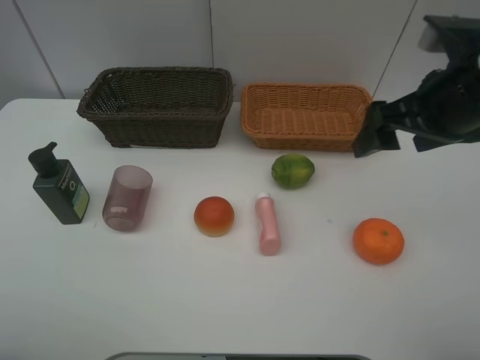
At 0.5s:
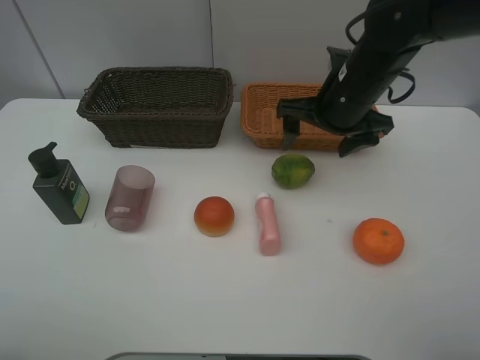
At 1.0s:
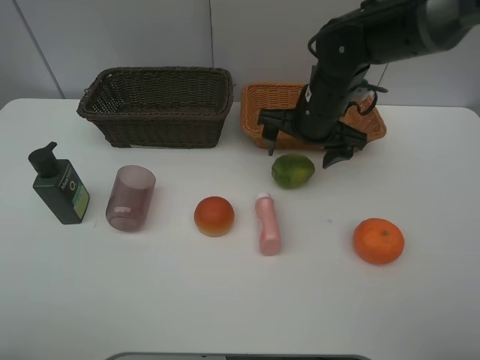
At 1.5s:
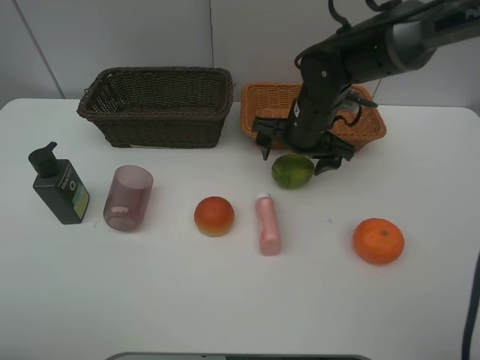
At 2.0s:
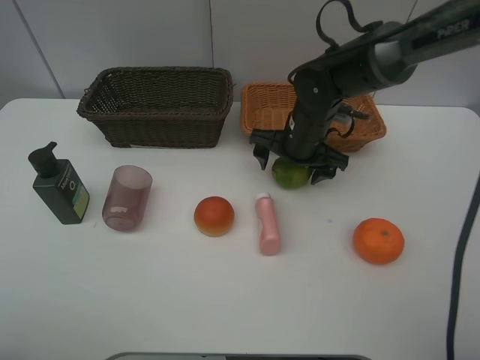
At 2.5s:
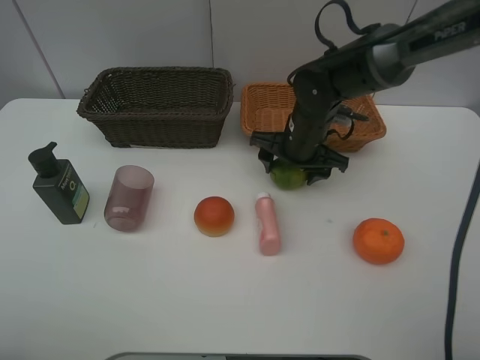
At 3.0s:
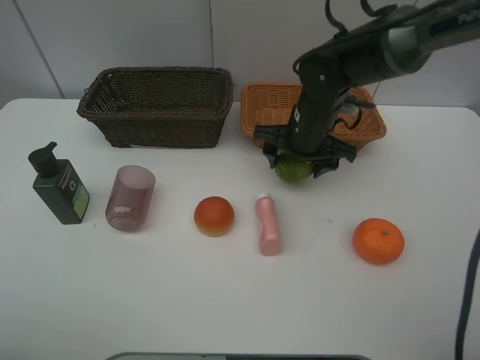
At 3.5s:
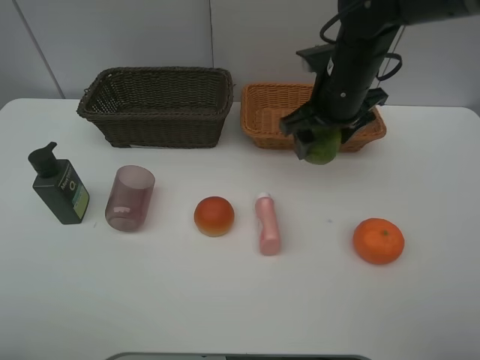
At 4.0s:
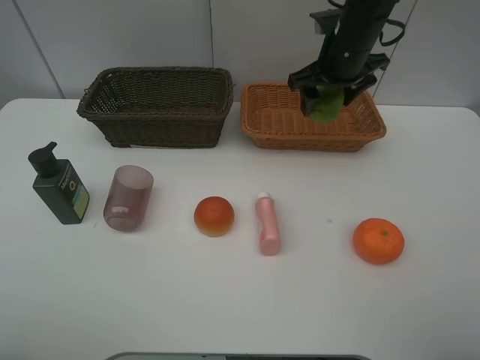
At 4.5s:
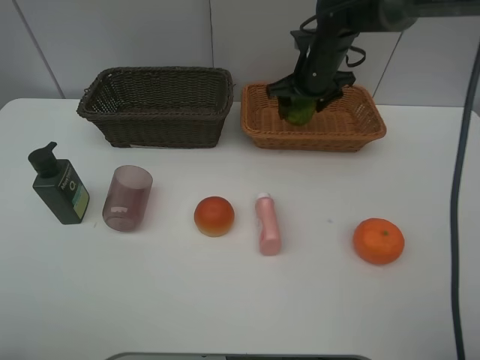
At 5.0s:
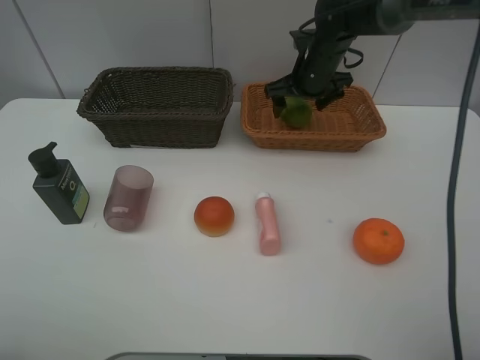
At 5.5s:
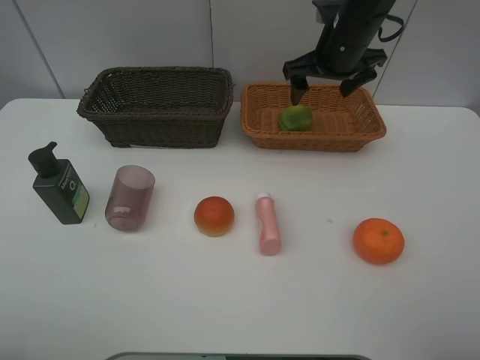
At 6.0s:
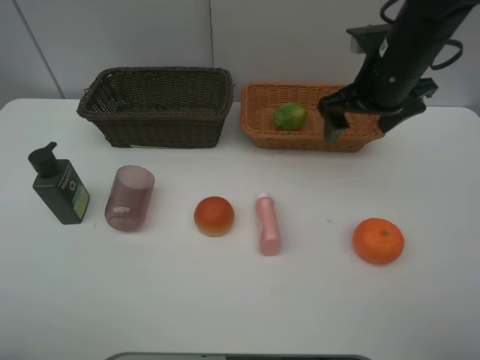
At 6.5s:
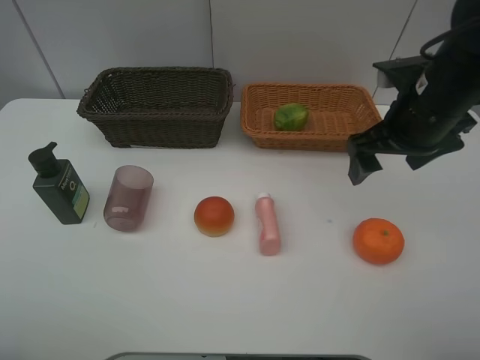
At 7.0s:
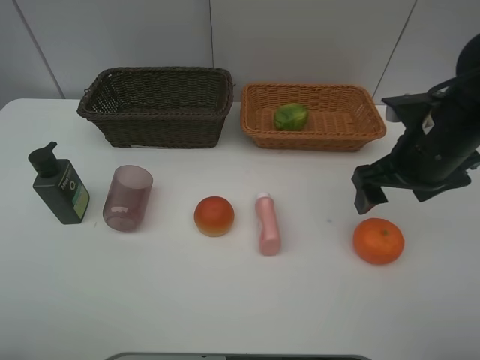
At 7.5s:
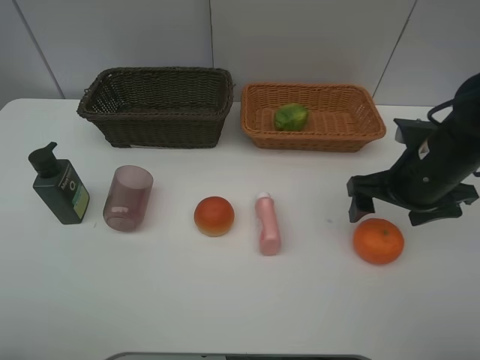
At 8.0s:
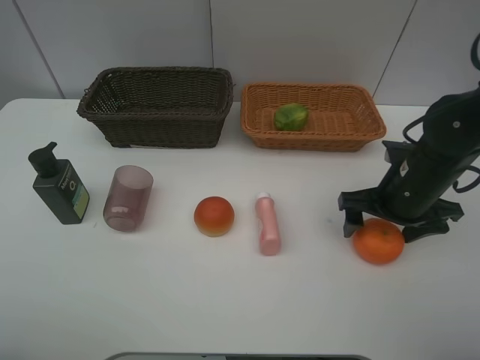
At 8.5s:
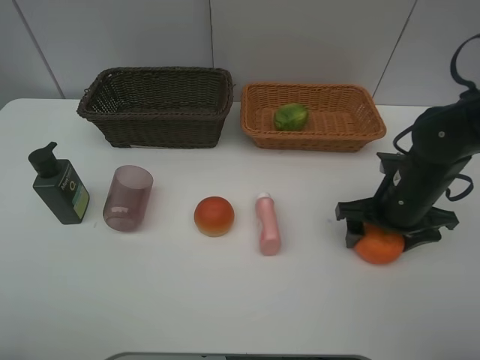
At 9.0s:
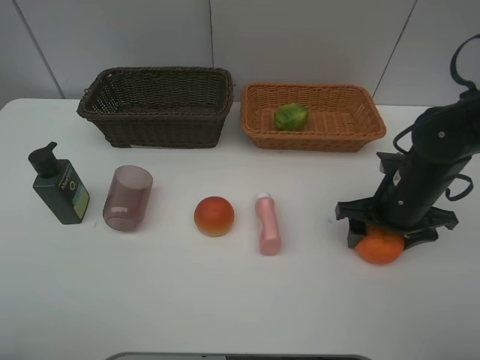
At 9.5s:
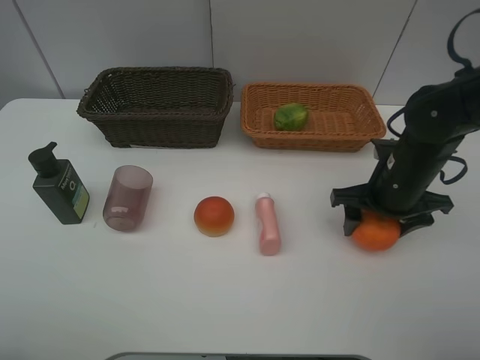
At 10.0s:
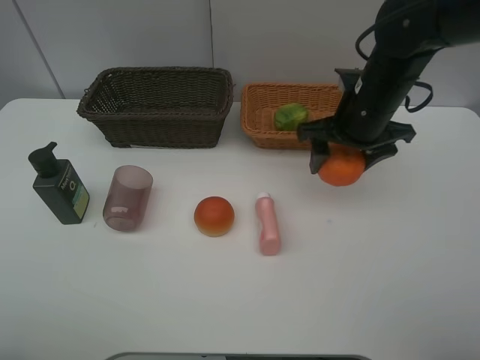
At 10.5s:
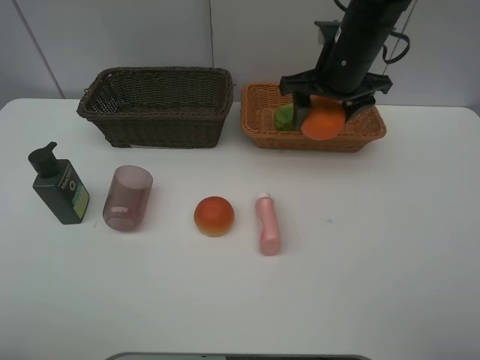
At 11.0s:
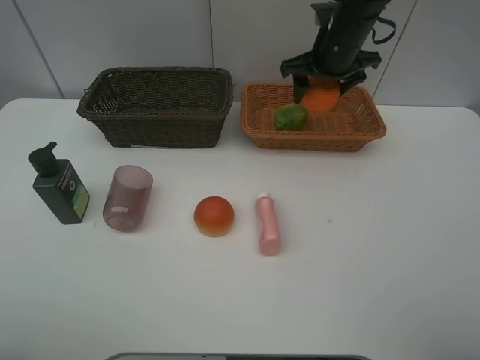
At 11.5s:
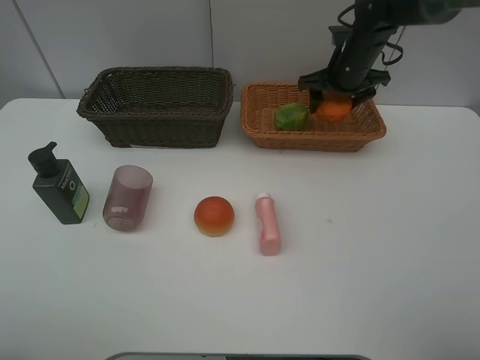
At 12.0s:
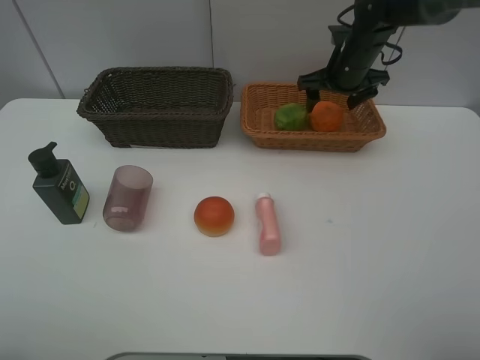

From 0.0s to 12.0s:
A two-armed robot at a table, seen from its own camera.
Task of the whole recording: place multiple objects separately in different baskets.
From 0.0s to 2.0s: The right gripper moves downward, forward and to the left, about 20 cm.
From 2.0s to 4.0s: The right gripper moves upward and forward, about 15 cm.
From 4.0s to 6.0s: The right gripper moves backward, some 10 cm.
From 6.0s to 8.0s: The right gripper is displaced downward and backward by approximately 15 cm.
From 8.0s to 10.0s: The right gripper travels forward, upward and to the left by roughly 10 cm.
From 10.0s to 12.0s: The right gripper goes approximately 15 cm forward.

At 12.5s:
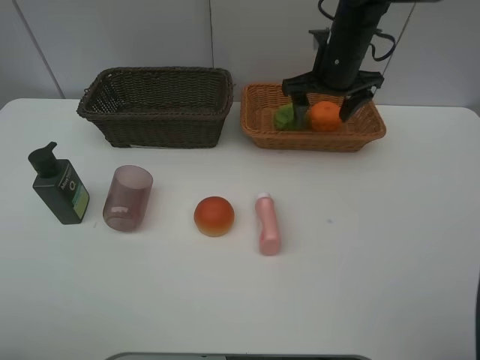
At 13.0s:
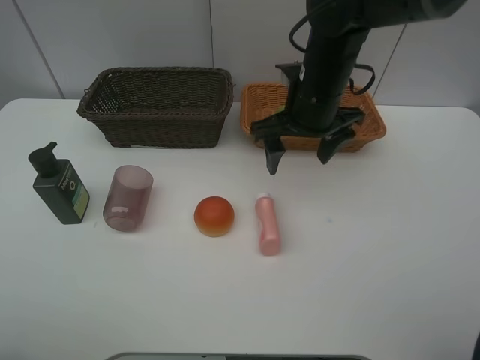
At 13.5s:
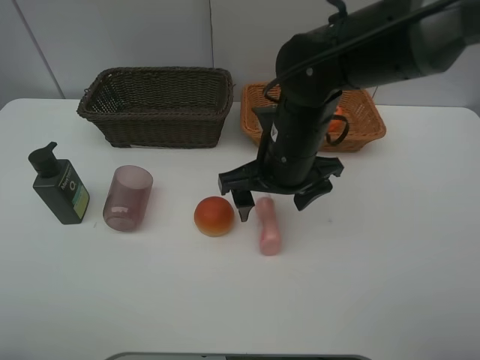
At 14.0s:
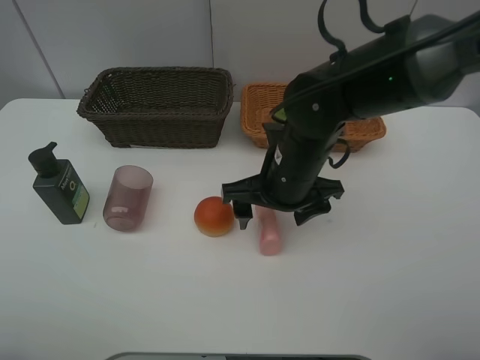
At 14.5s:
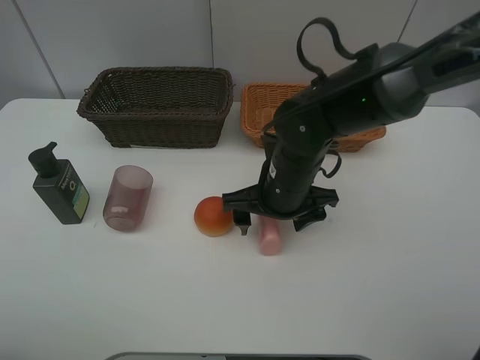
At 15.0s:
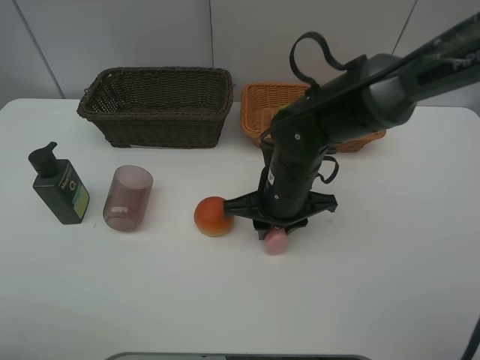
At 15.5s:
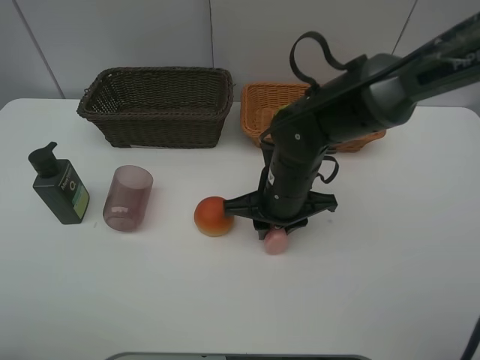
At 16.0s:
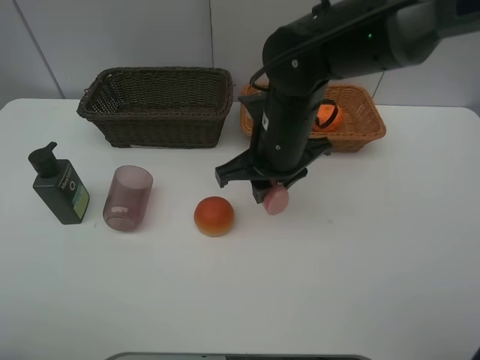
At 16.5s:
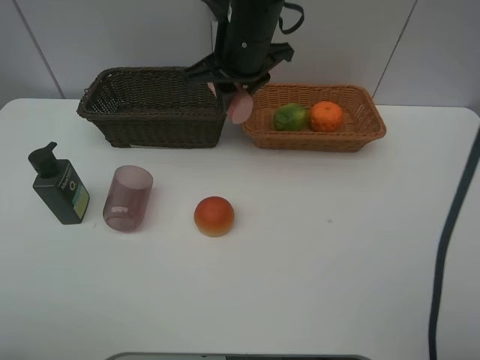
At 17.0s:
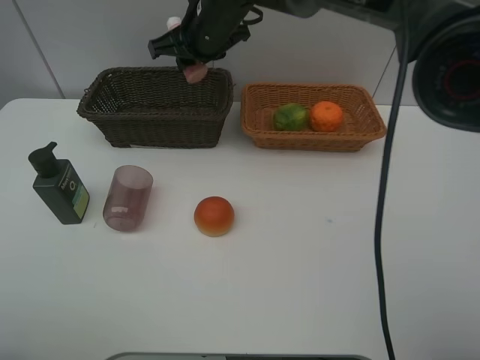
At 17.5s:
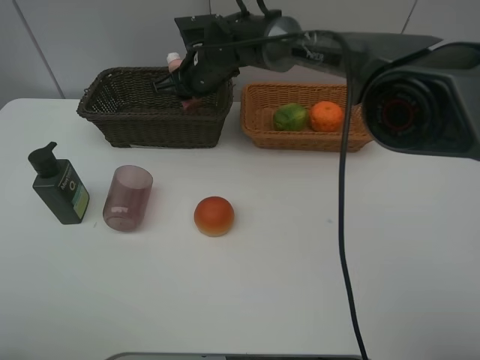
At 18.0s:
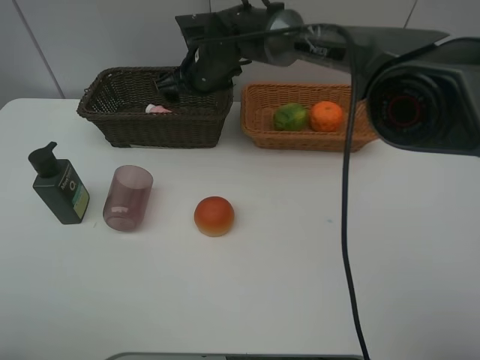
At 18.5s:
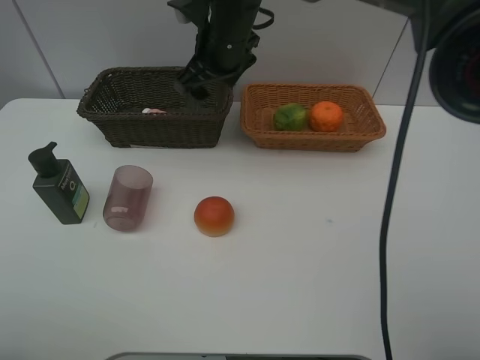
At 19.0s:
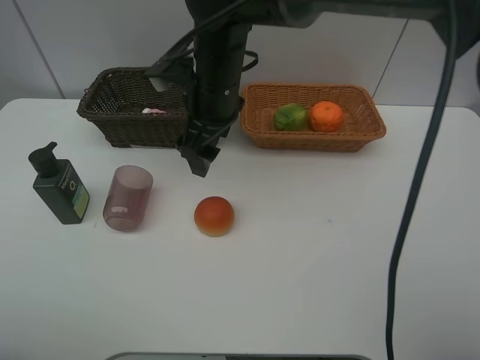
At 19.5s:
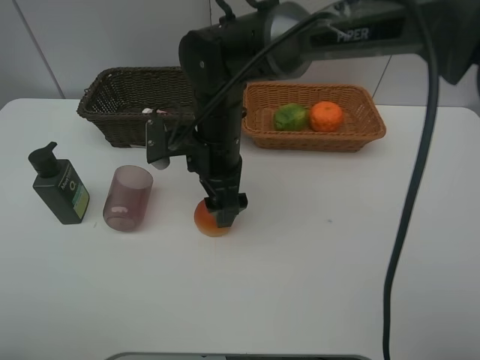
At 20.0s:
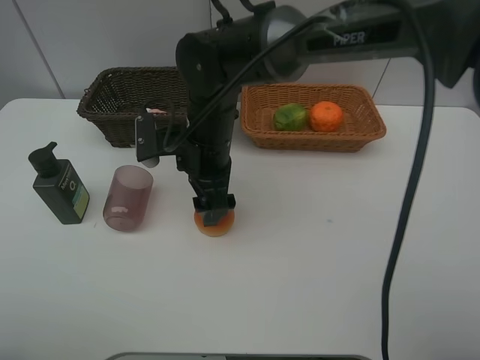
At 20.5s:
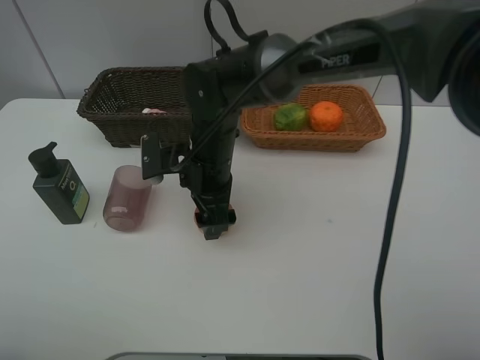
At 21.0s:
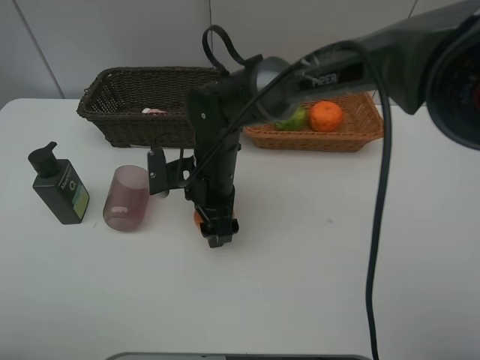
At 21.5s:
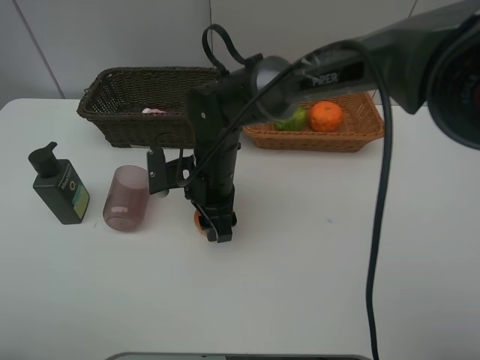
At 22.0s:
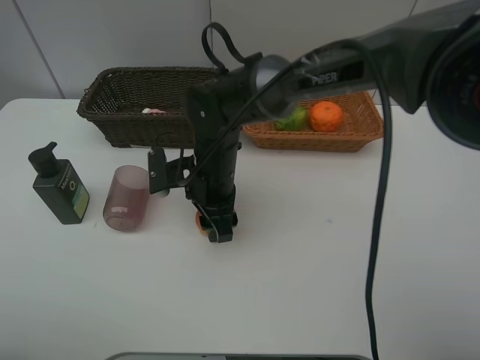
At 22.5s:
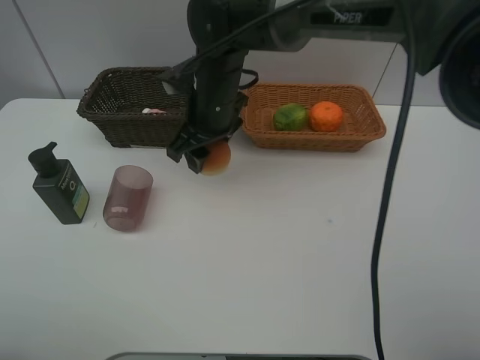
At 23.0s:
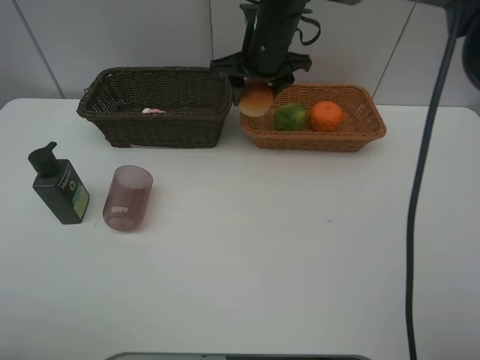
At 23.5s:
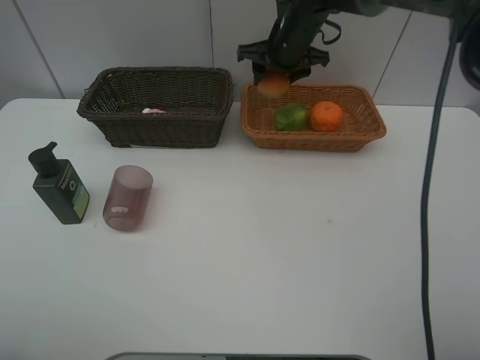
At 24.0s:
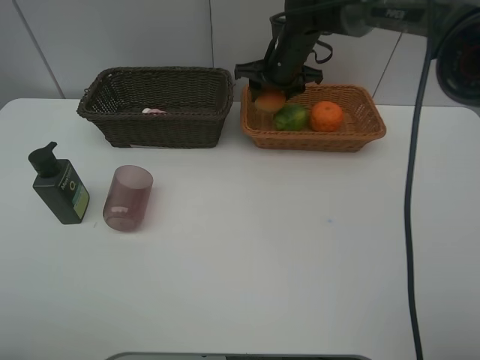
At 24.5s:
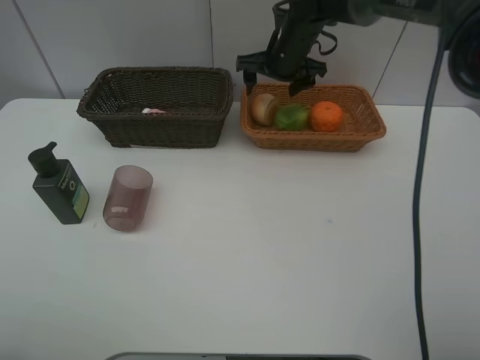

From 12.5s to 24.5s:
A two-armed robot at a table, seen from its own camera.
Task of the whole recording: place multiple objects separately in different baskets.
From 12.5s to 14.5s: The right gripper shifts about 20 cm backward, downward and to the left.
From 14.5s to 16.5s: The right gripper shifts some 20 cm upward, forward and to the left, and closes up.
From 16.5s to 18.5s: The right gripper reaches roughly 10 cm downward, then returns, and opens up.
From 18.5s to 20.5s: The right gripper travels downward and backward by about 15 cm.
From 20.5s to 22.5s: The right gripper heads upward and forward, covering some 10 cm, and closes.
From 22.5s to 24.5s: The right gripper is displaced forward and to the right by roughly 15 cm, and opens up.

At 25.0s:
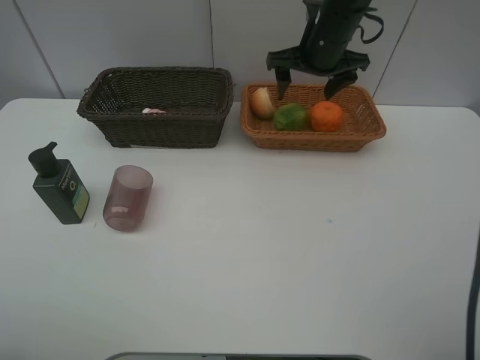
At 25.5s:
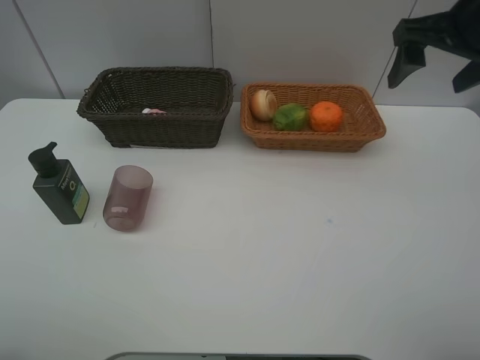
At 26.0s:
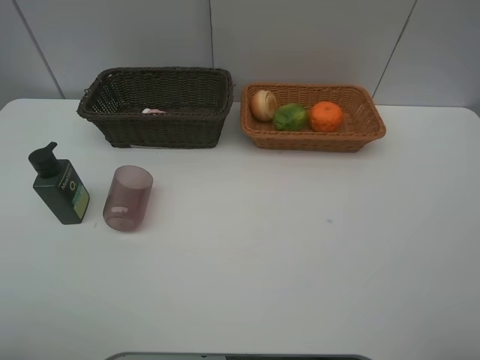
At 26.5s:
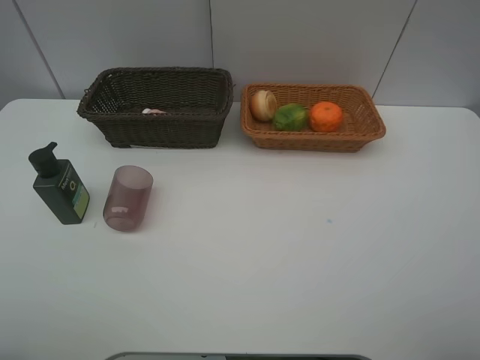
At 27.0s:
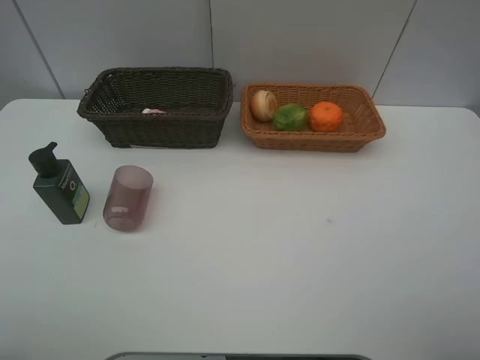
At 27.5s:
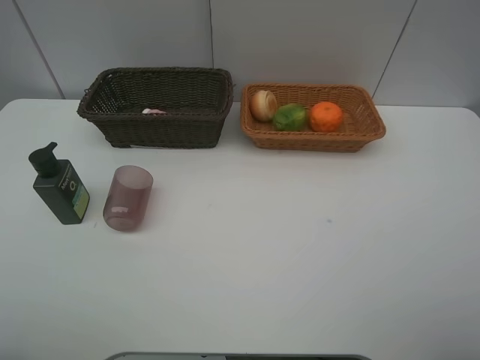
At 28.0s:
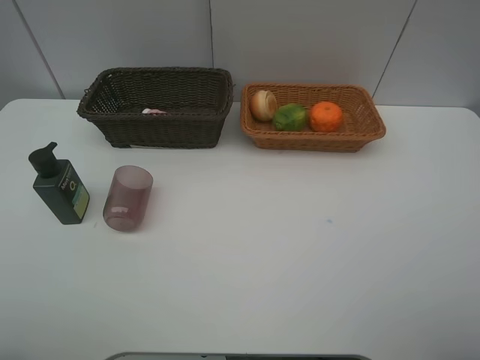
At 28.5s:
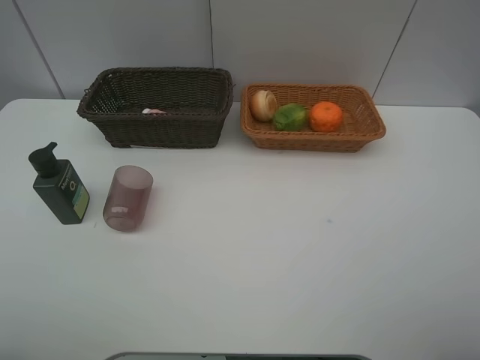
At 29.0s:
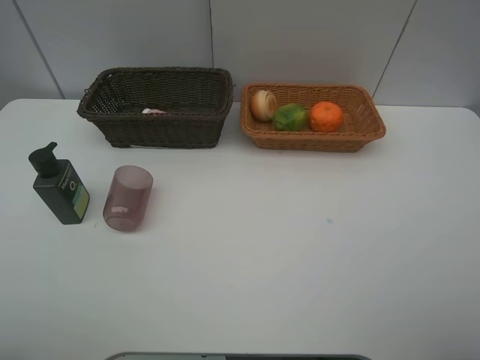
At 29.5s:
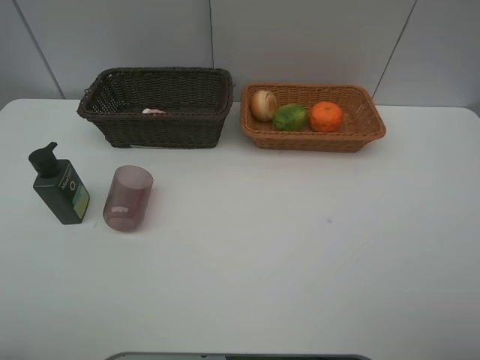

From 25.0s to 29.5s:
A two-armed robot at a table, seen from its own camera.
Task of the whole recording: place multiple objects separately in different baskets.
From 25.0s to 27.0s: The right gripper moves backward, approximately 40 cm.
